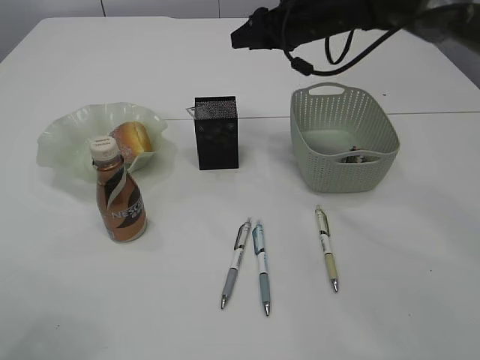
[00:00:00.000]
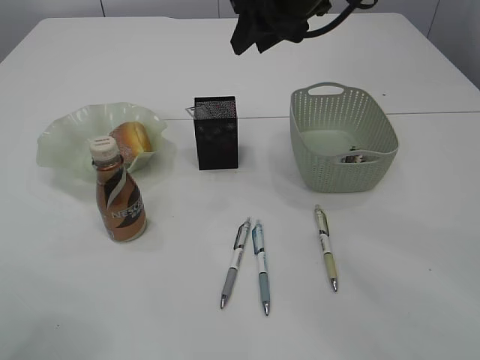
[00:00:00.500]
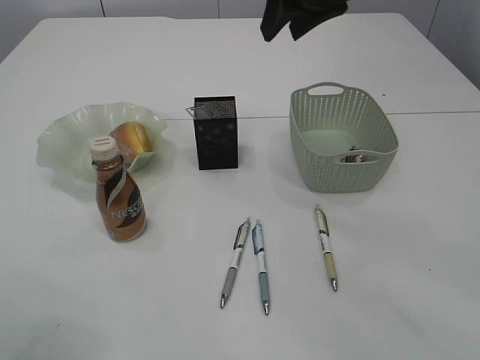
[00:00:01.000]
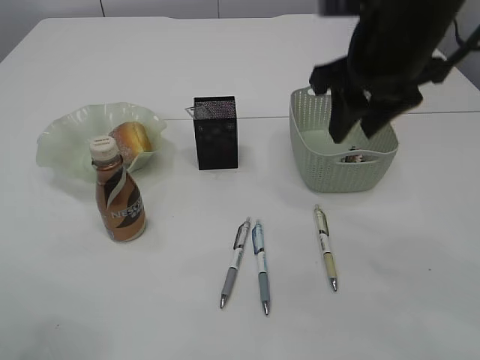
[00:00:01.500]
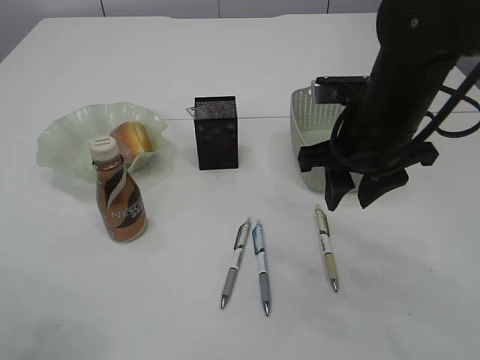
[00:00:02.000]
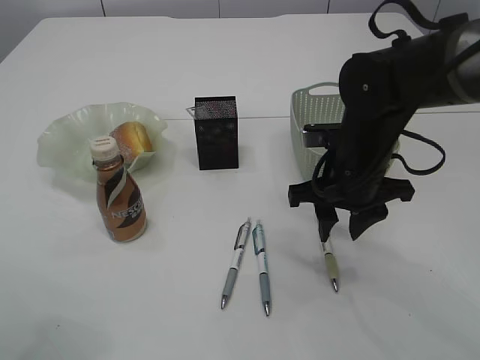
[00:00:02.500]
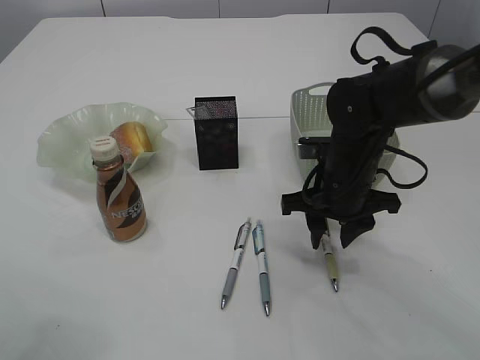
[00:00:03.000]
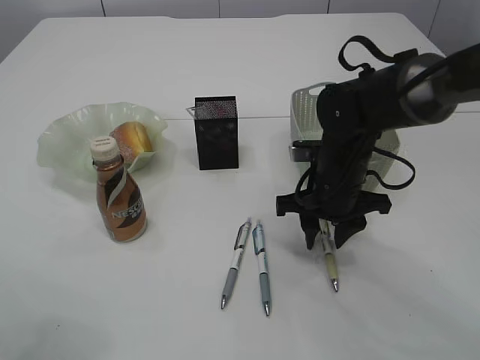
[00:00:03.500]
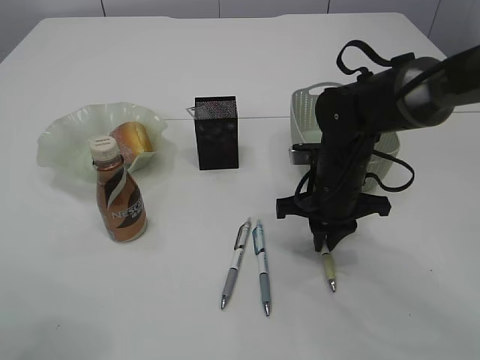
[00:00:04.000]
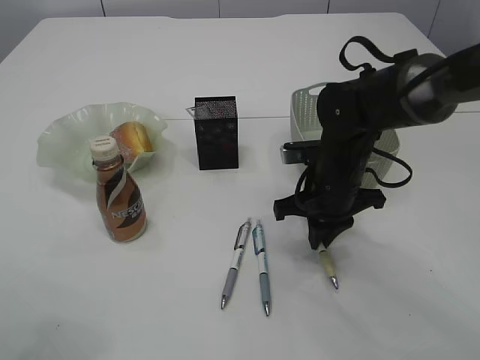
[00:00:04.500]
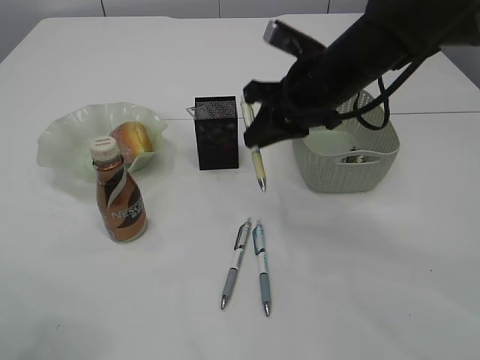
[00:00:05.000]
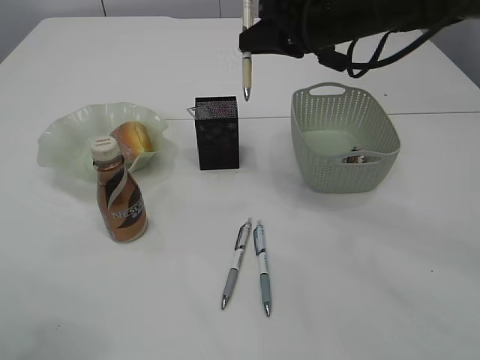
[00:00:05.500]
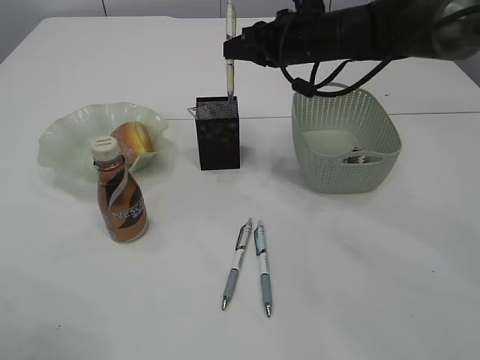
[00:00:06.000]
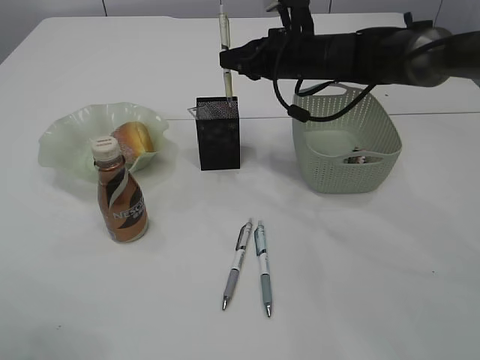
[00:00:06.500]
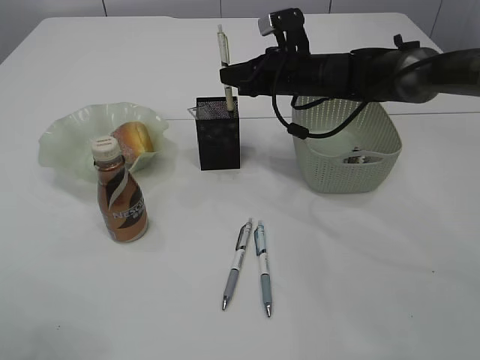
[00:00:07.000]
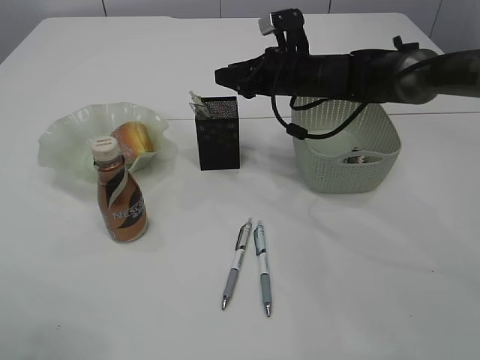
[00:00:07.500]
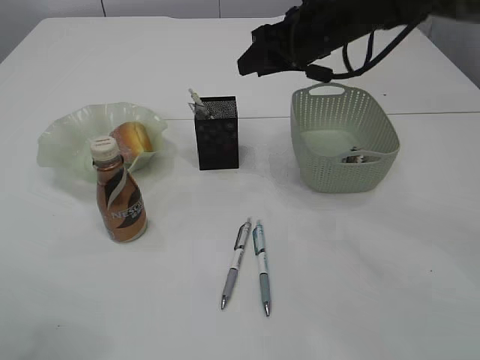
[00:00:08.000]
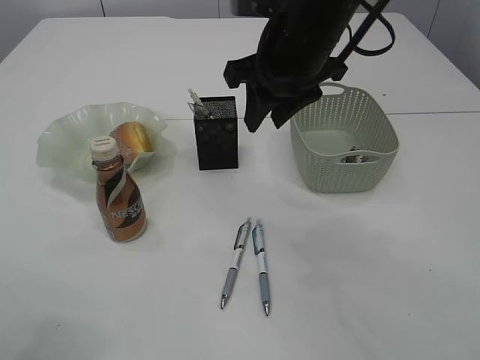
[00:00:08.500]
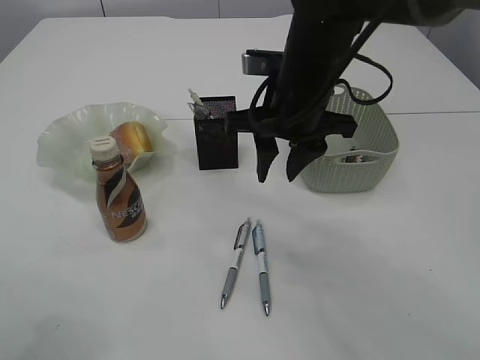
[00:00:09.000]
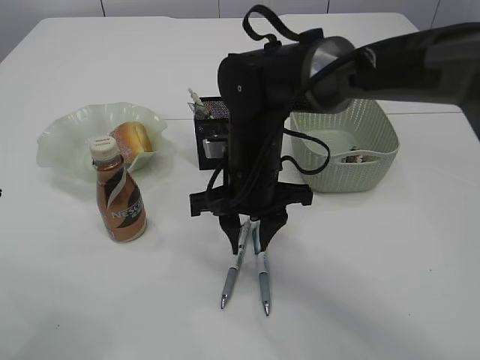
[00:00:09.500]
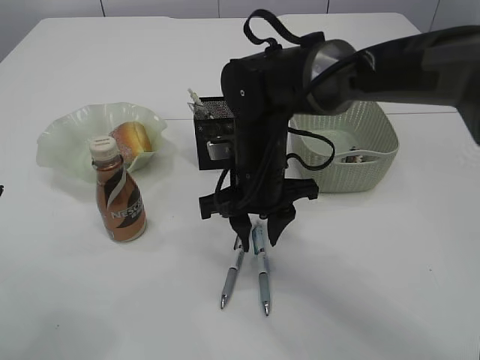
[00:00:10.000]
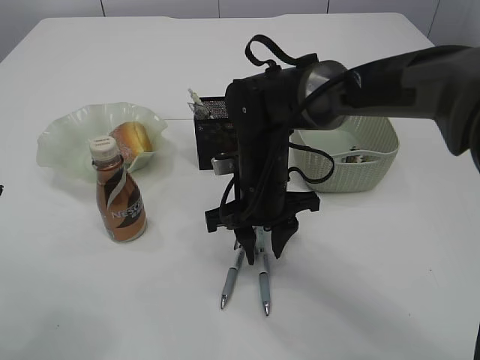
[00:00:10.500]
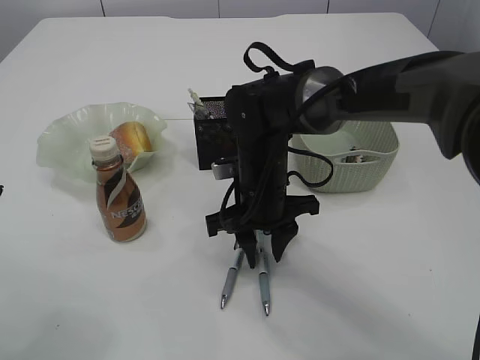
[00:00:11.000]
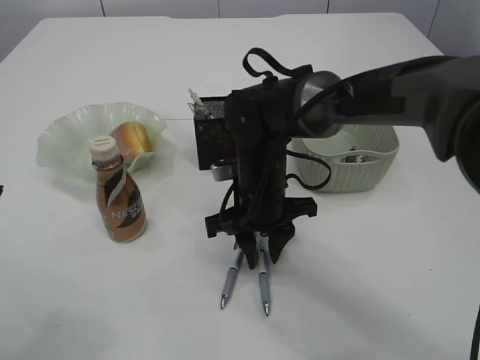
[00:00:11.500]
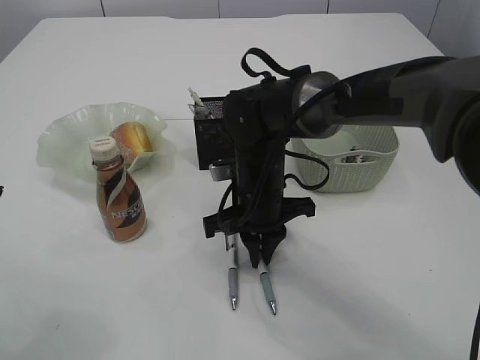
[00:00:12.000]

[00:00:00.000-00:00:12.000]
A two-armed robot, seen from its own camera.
Step, 00:00:00.500 to 00:00:04.500: Pick up the pen with right arm.
Step, 00:00:05.000 to 00:00:07.500: Place the pen into the pen holder.
00:00:00.000 to 00:00:02.000: The right gripper is displaced backward by roughly 20 cm.
00:00:02.000 to 00:00:04.000: The right gripper shifts about 10 cm downward, and closes.
00:00:04.000 to 00:00:06.000: The right gripper is displaced upward and forward by approximately 15 cm.
00:00:06.000 to 00:00:08.000: The right gripper goes downward and returns, about 5 cm each way, and opens up.
00:00:08.000 to 00:00:10.000: The right gripper goes approximately 20 cm backward, downward and to the left.
00:00:10.000 to 00:00:12.000: The right gripper closes its fingers.

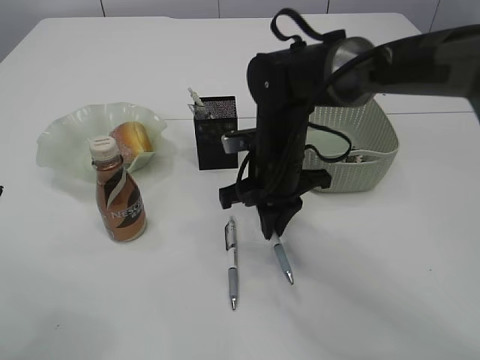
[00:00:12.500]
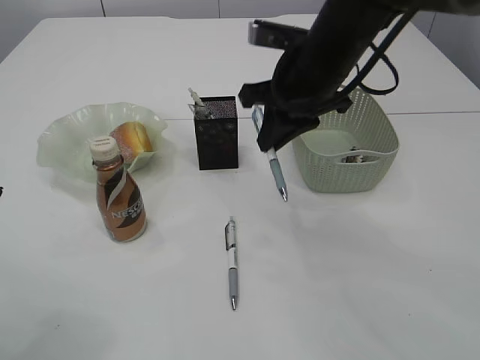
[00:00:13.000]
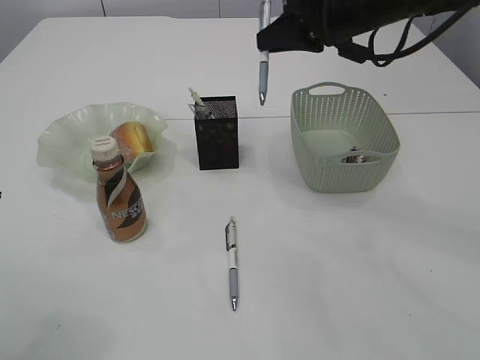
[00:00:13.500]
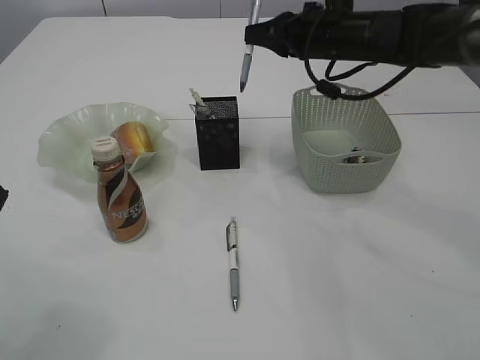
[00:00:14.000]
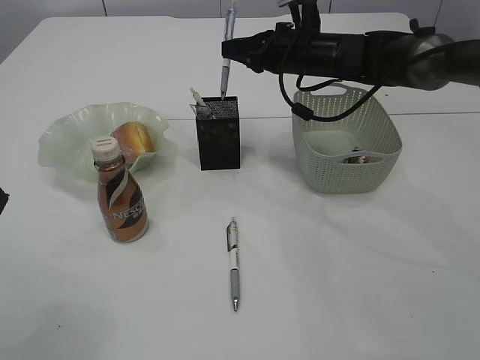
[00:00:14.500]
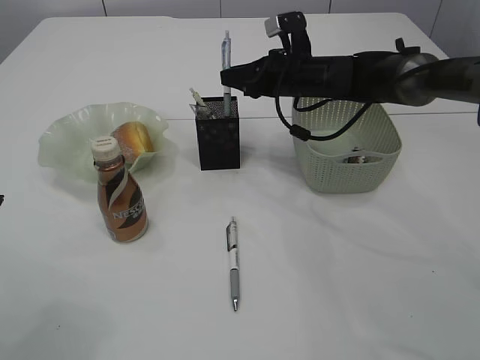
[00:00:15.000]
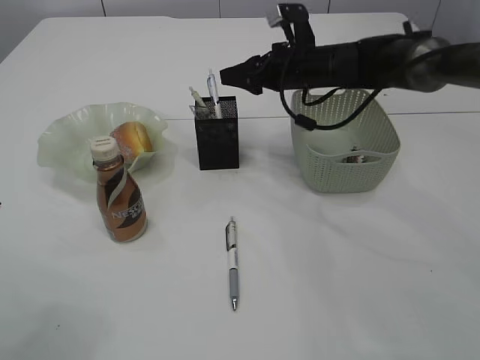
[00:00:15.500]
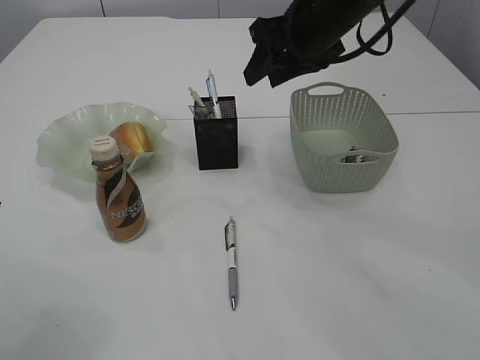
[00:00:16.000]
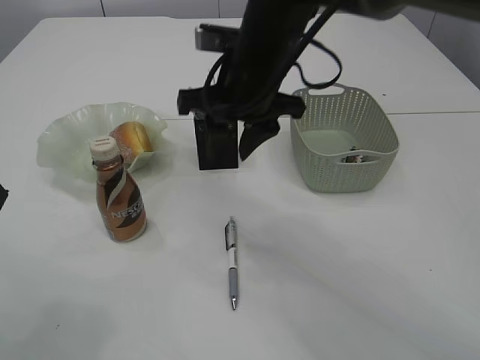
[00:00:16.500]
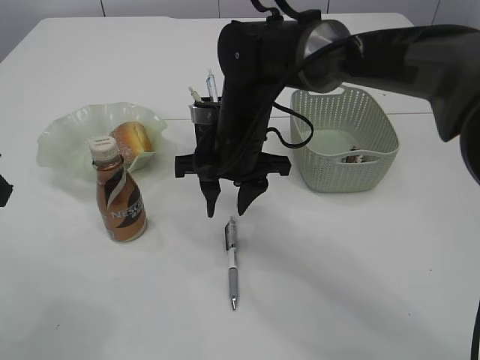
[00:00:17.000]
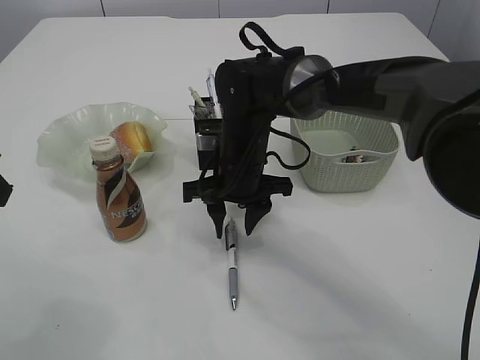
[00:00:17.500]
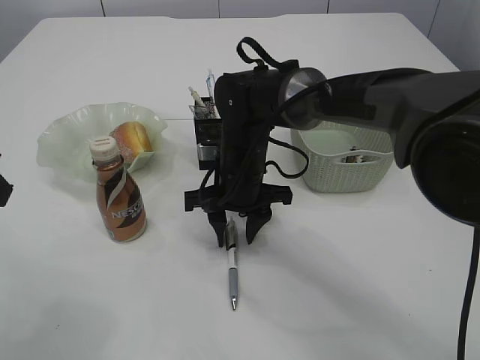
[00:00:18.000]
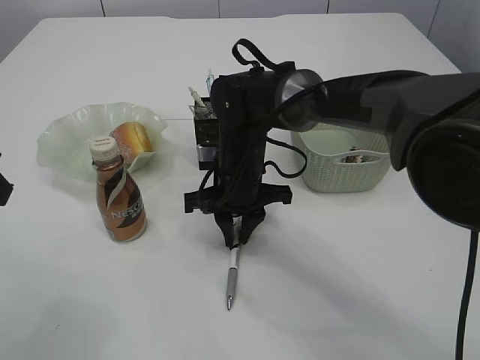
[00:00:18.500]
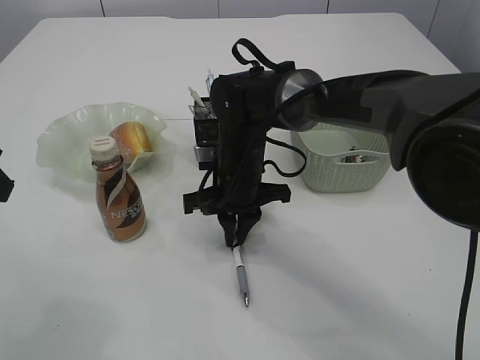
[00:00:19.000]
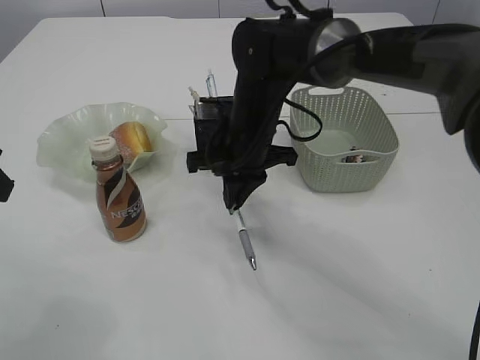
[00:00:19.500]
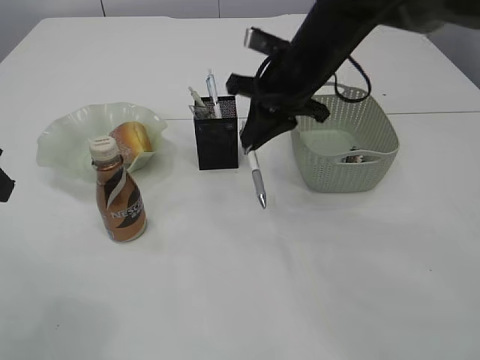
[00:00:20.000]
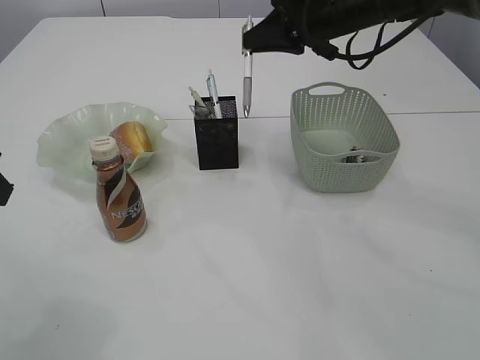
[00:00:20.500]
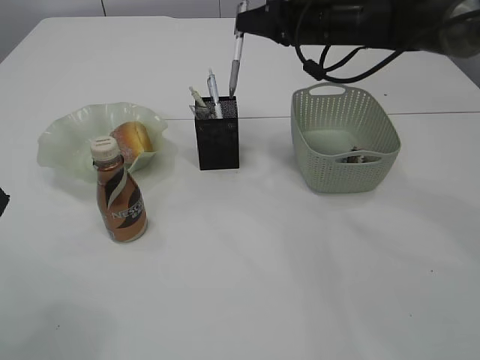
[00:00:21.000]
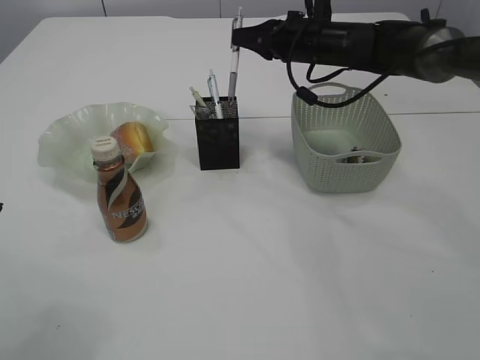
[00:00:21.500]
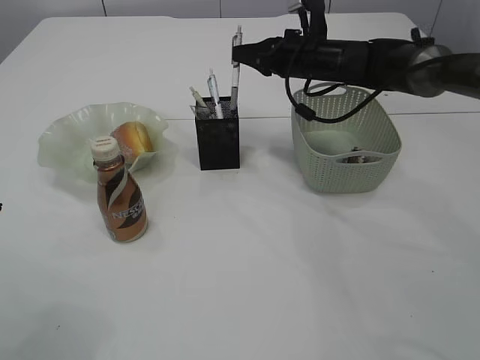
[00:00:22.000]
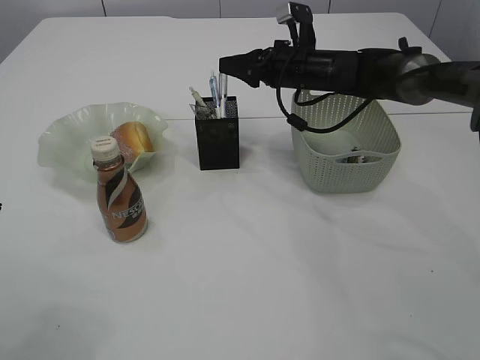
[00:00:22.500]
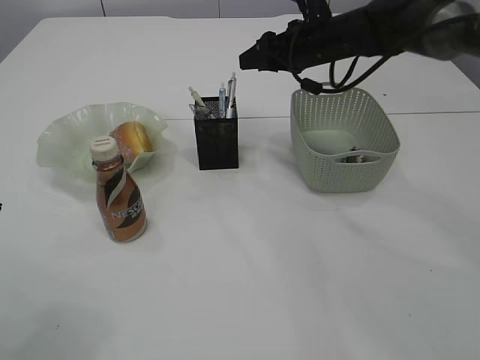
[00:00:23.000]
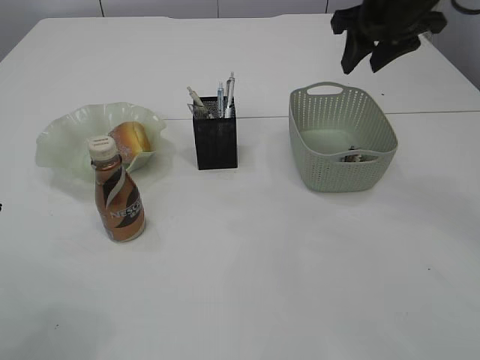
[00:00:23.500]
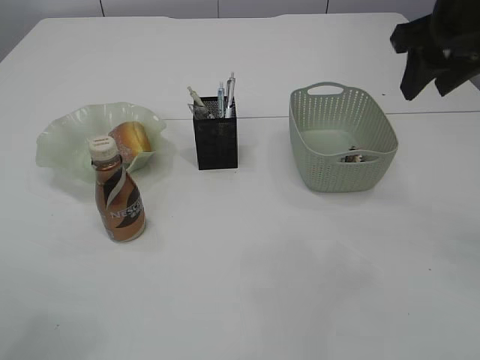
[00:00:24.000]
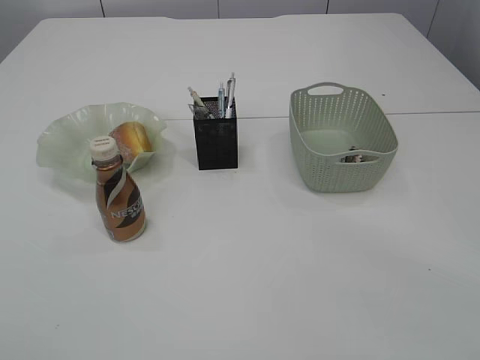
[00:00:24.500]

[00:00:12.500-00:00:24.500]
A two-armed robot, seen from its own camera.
Step, 00:00:13.000 to 00:00:15.000: Place the pen into the pen holder.
Step, 00:00:15.500 to 00:00:19.500: Pick up the pen with right arm.
Step, 00:00:20.000 to 00:00:22.500: Place the pen into the pen holder.
00:00:12.500 to 00:00:14.500: The right gripper shifts some 15 cm forward, to the right and upward.
00:00:14.500 to 00:00:16.500: The right gripper is displaced backward and to the left by about 15 cm, and opens.
00:00:16.500 to 00:00:18.500: The right gripper moves downward, roughly 15 cm.
00:00:18.500 to 00:00:20.500: The right gripper moves upward, to the right and forward, some 25 cm.
00:00:20.500 to 00:00:22.500: The right gripper goes about 10 cm downward and forward, and opens up.
00:00:22.500 to 00:00:24.500: The right gripper moves backward and upward, roughly 35 cm. Meanwhile the left gripper travels backward and upward by roughly 10 cm.

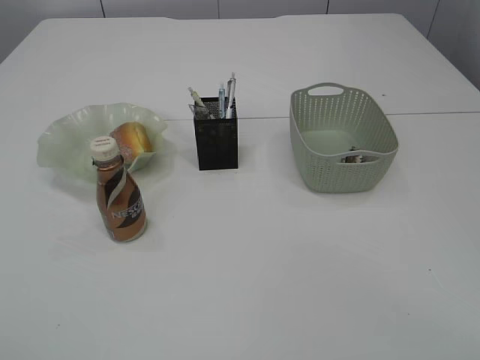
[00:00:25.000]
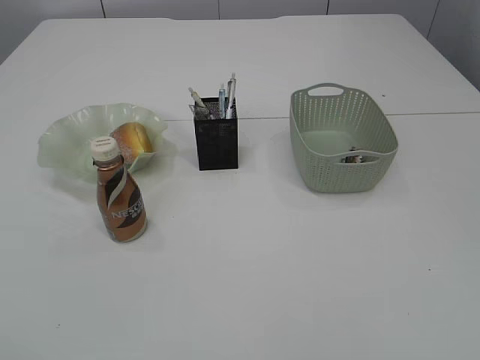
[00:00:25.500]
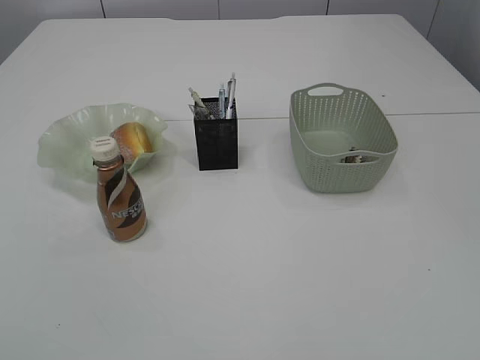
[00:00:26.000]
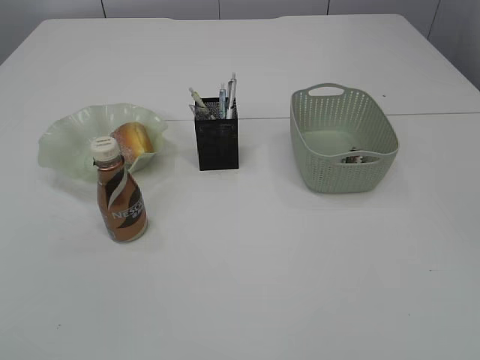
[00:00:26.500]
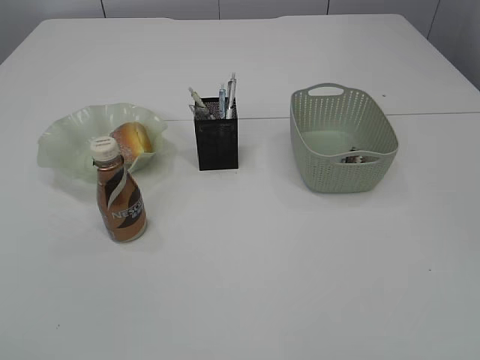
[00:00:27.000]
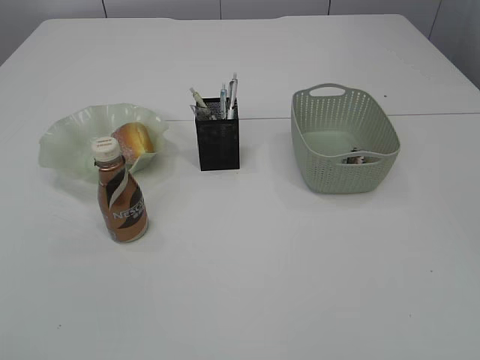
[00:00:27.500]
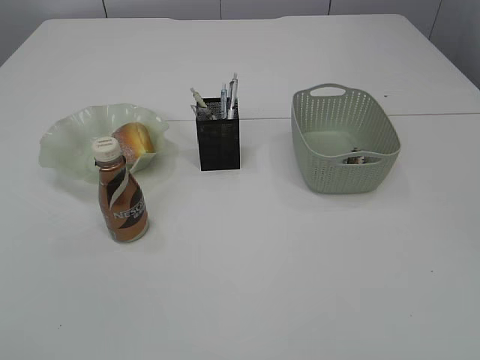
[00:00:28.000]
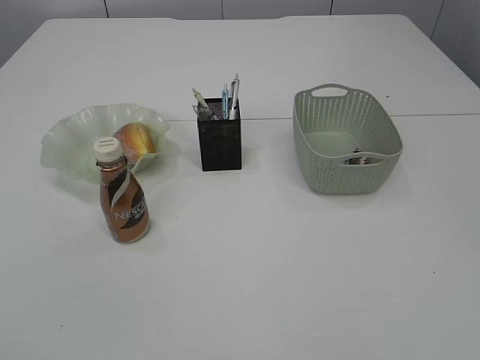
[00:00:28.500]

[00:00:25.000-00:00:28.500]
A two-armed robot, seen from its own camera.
00:00:27.000 to 00:00:28.500: The grippers move only a little.
